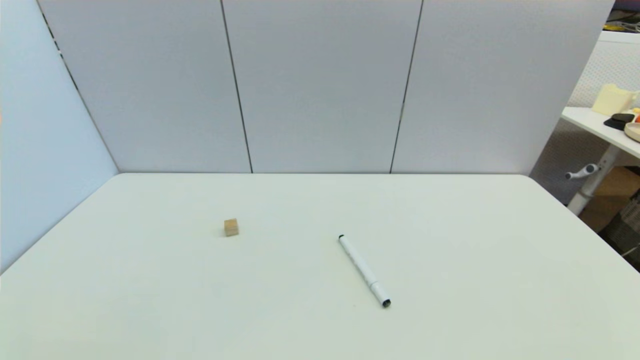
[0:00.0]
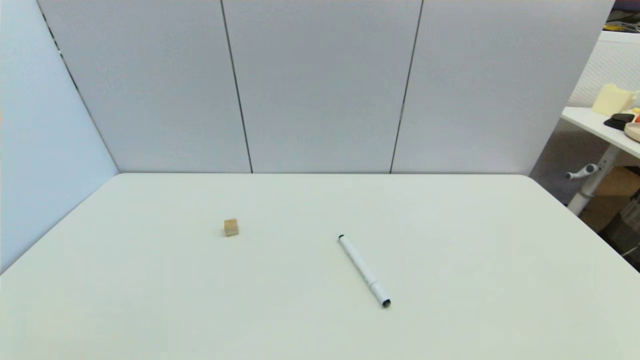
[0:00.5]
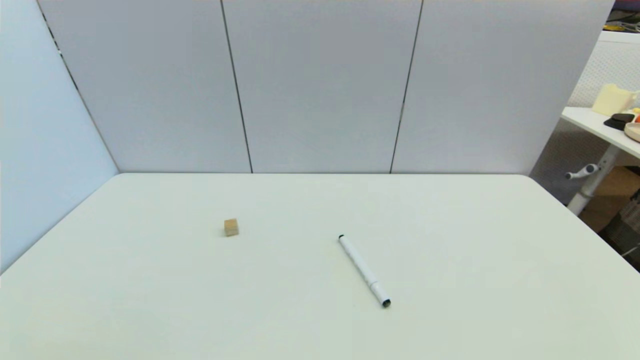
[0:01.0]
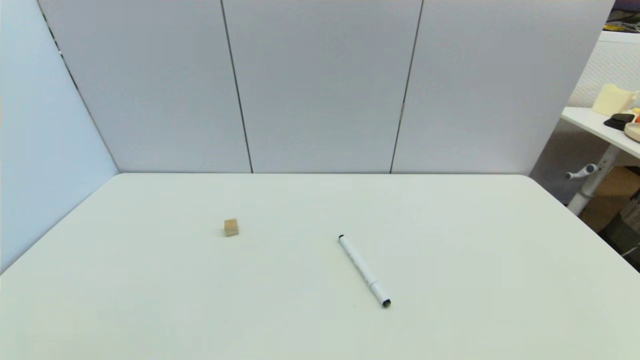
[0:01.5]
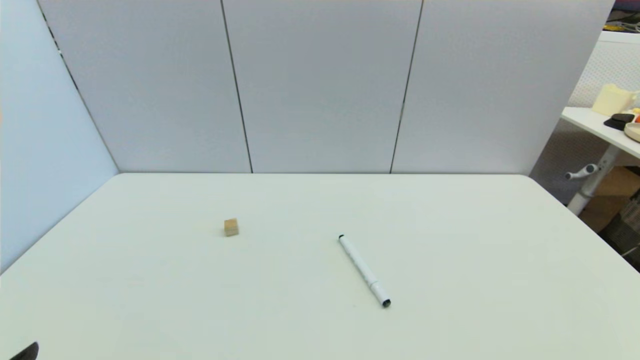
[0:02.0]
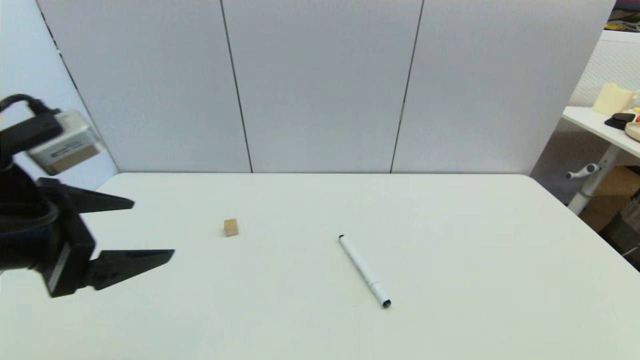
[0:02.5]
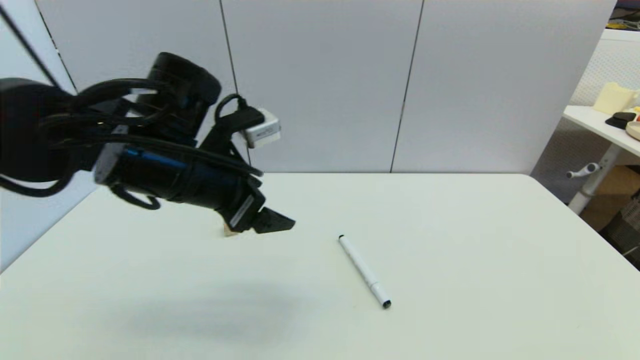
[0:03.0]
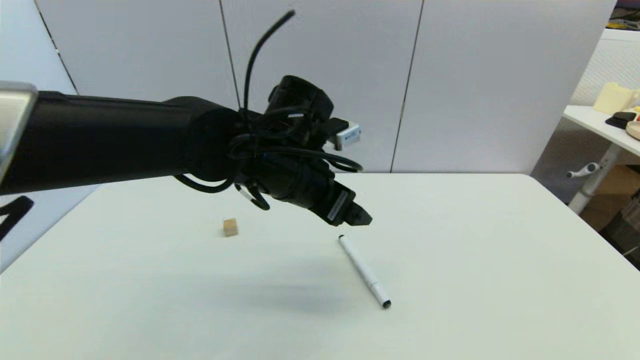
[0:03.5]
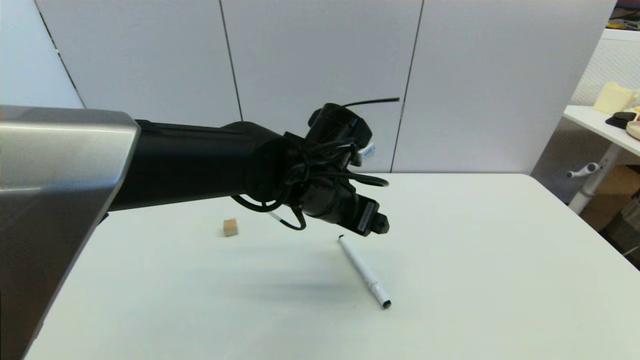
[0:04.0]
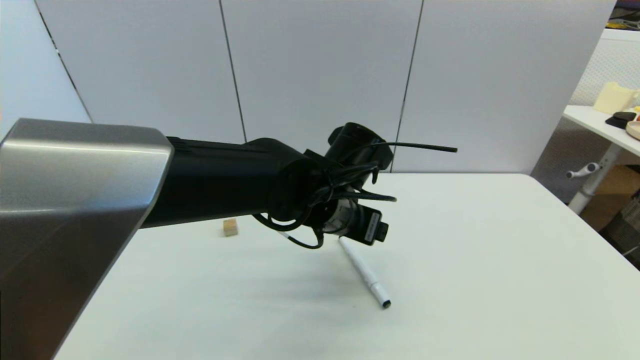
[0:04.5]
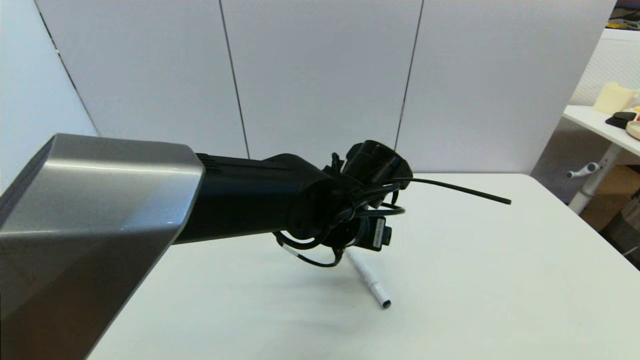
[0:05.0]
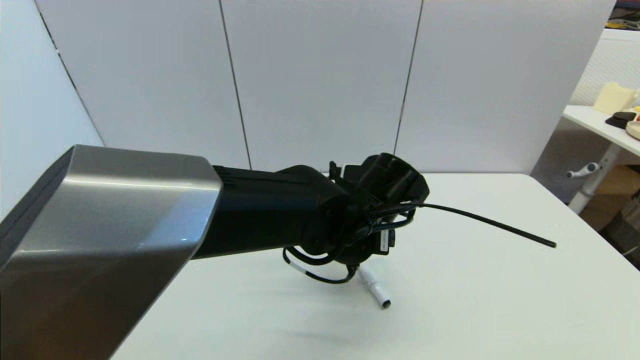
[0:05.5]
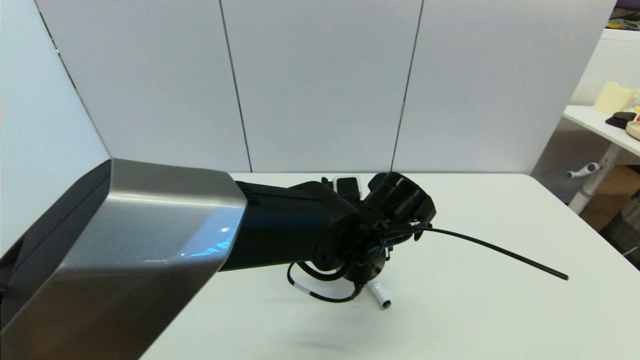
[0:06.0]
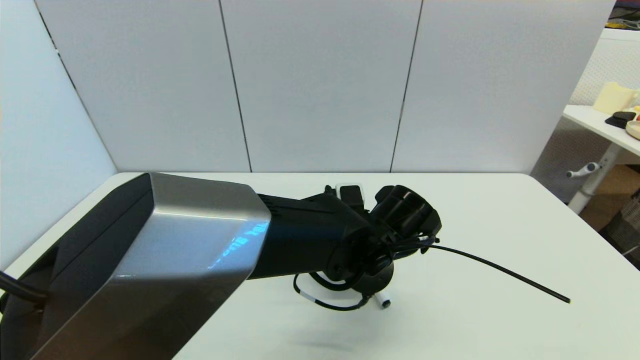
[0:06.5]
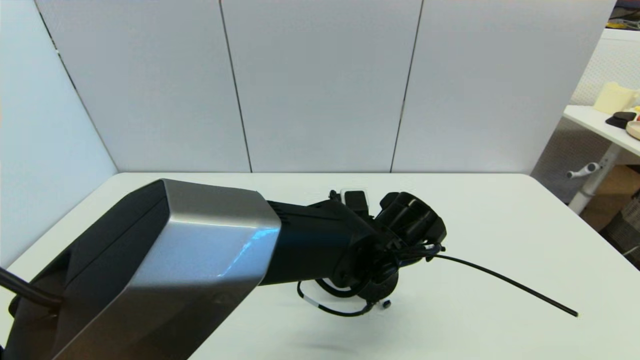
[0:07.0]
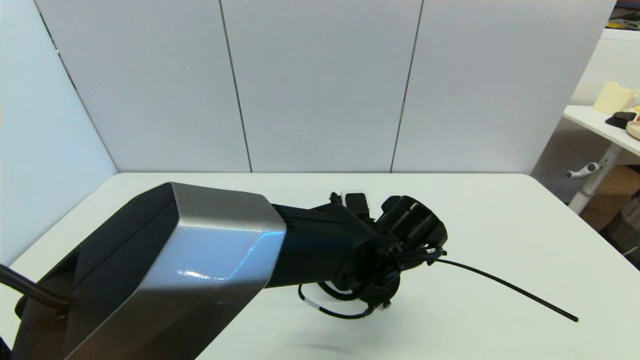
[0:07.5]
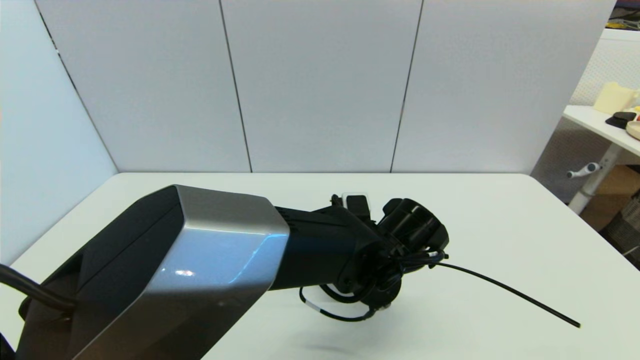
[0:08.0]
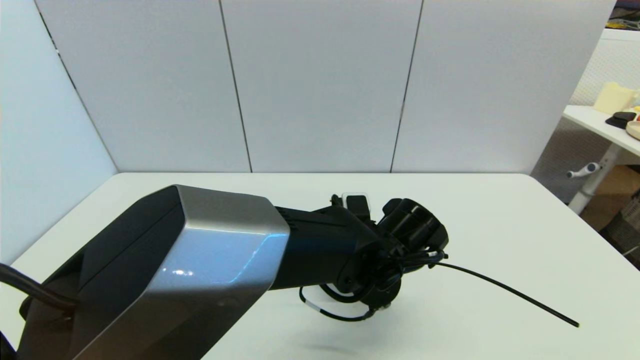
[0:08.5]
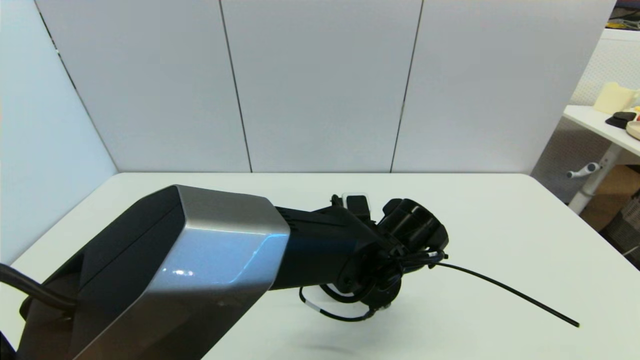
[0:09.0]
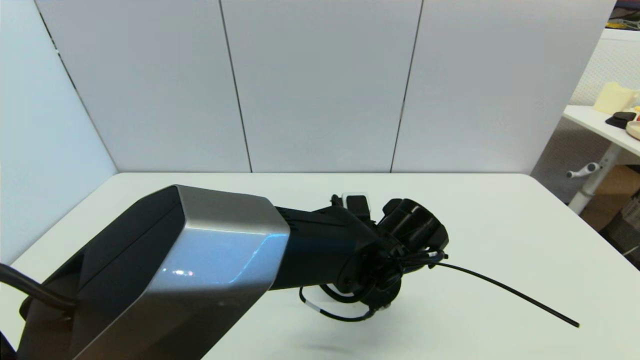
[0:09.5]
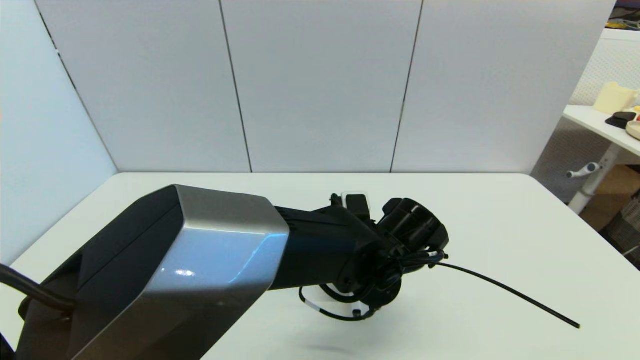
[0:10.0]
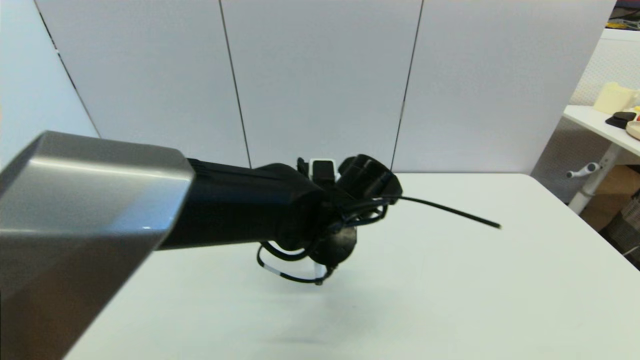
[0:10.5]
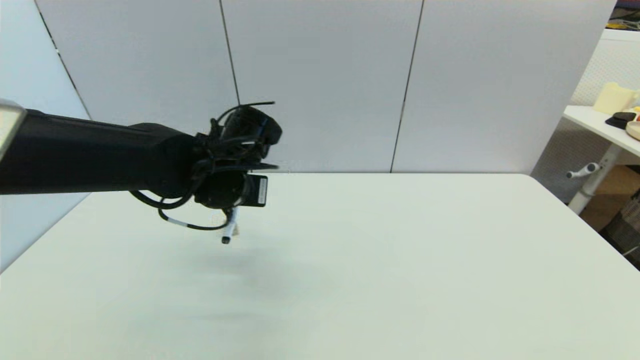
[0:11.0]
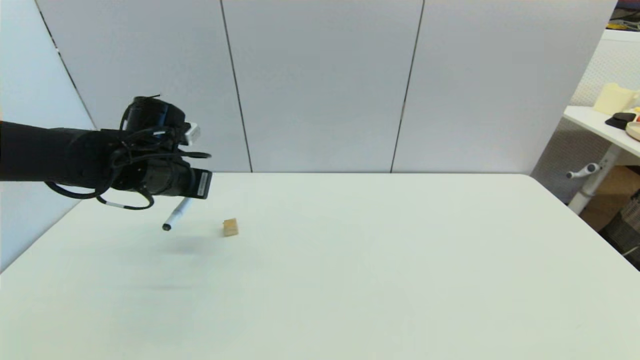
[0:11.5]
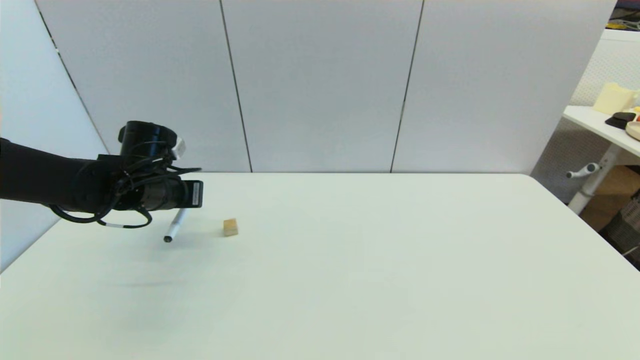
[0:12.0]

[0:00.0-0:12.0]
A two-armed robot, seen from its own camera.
Task of the whole recording: put the black marker in the designated position.
Step, 0:02.0 to 0:09.5: Grasp the Marker pen with left gripper.
0:02.0 to 0:04.0: The left gripper moves to the right and forward, approximately 40 cm.
0:04.0 to 0:06.0: The left gripper travels downward by about 5 cm.
0:10.0 to 0:12.0: The left gripper moves to the left, roughly 30 cm.

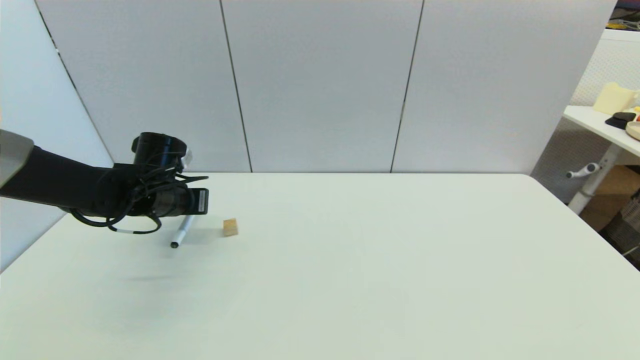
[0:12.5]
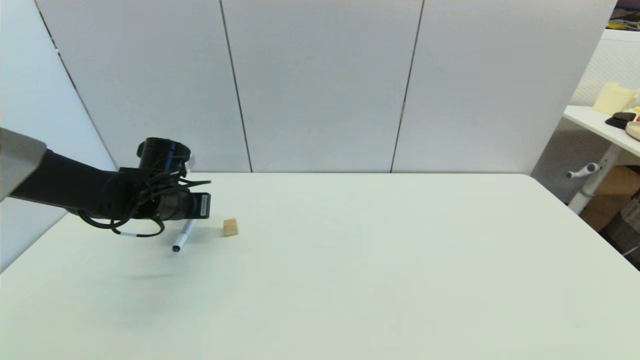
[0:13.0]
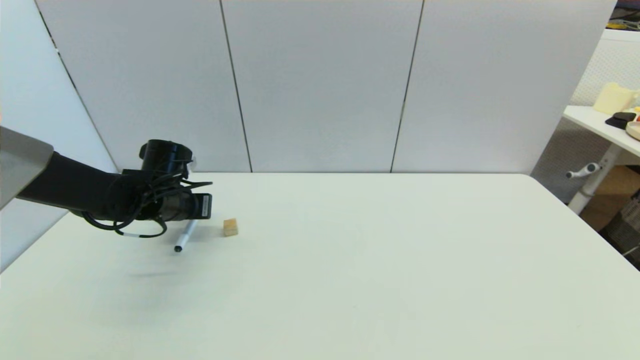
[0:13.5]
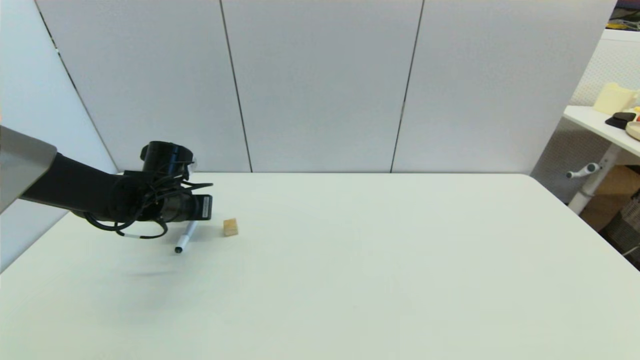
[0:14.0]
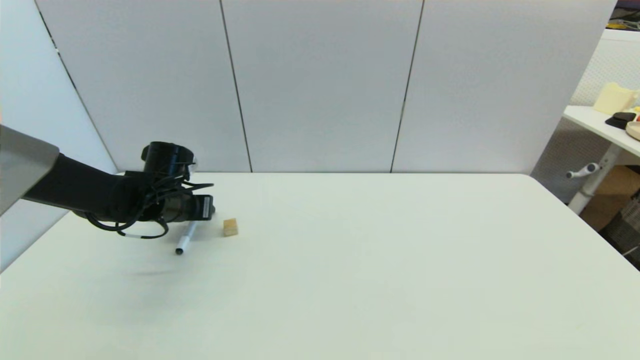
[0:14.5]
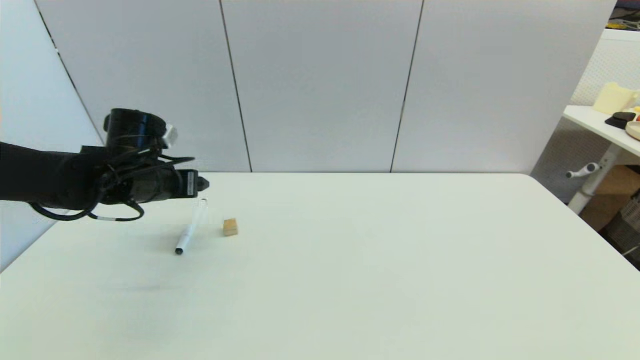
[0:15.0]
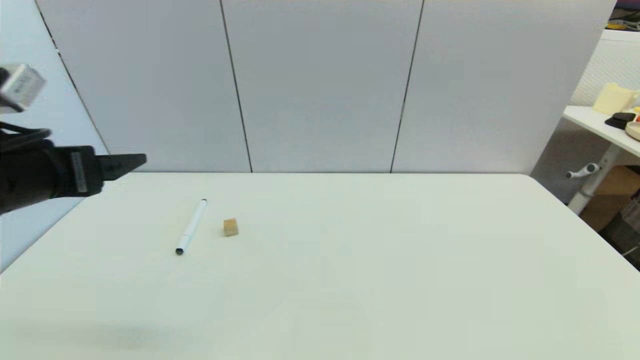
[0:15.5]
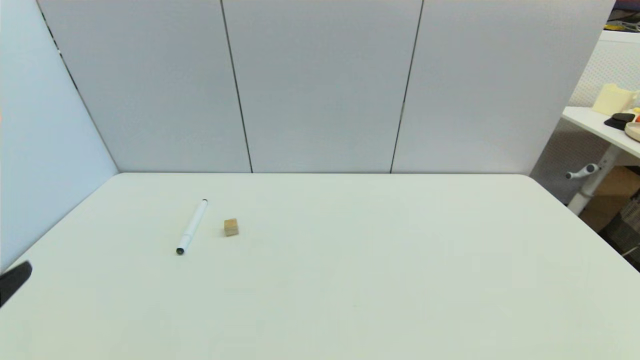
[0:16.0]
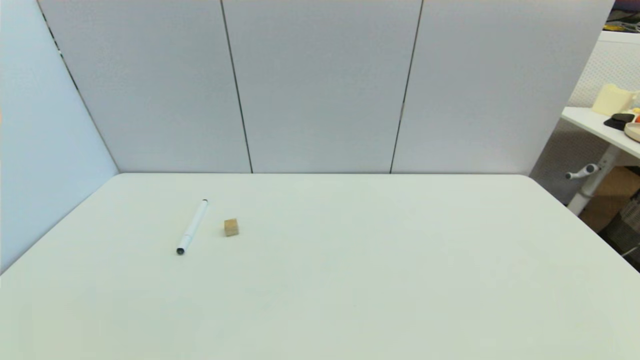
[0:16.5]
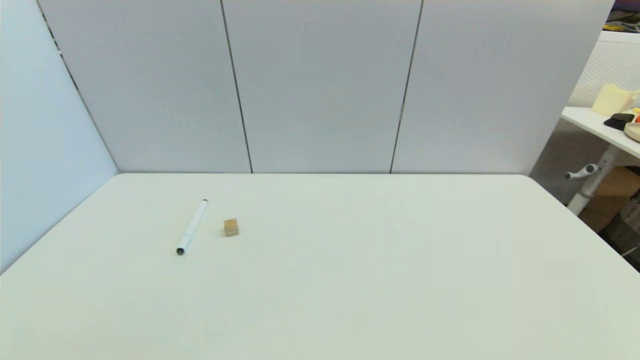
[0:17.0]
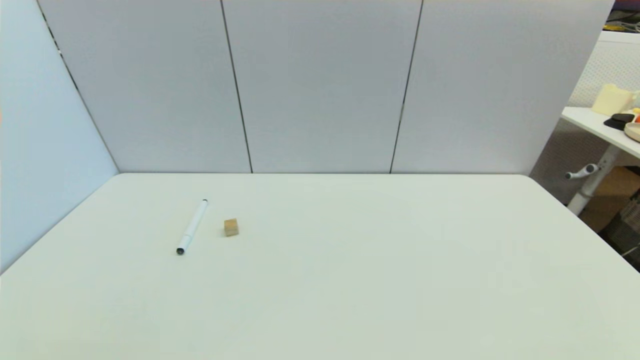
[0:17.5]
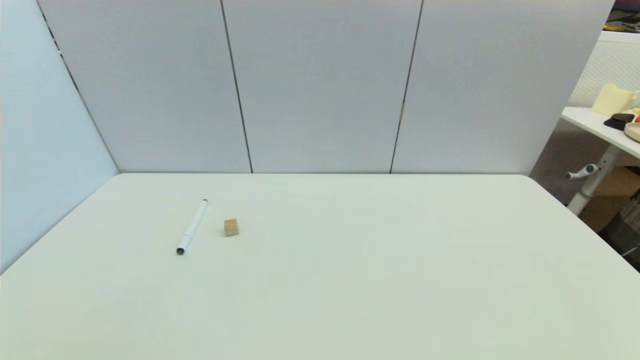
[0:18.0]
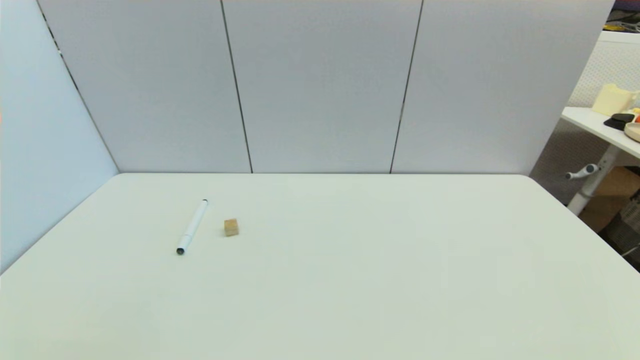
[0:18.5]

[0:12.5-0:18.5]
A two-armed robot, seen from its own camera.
Task of the whole recording: put the black marker in the designated position.
Step, 0:12.5 to 0:14.5: Place the Marker pen on the table with left gripper.
0:12.5 to 0:14.5: The left gripper opens its fingers.
0:14.5 to 0:16.5: The left gripper heads backward, covering roughly 40 cm, and opens up.
